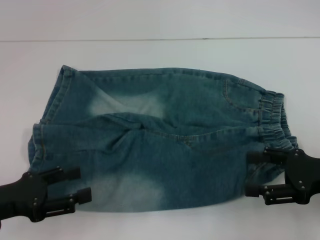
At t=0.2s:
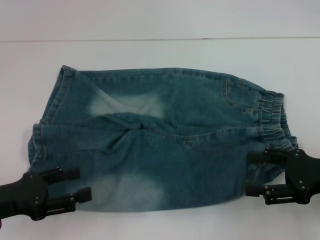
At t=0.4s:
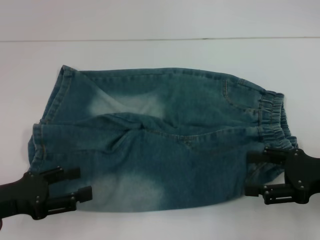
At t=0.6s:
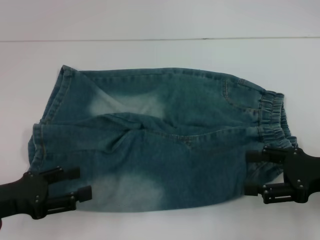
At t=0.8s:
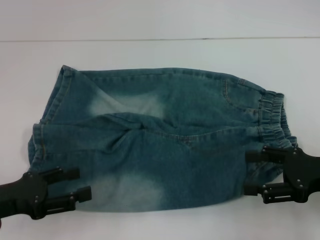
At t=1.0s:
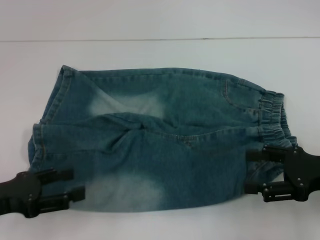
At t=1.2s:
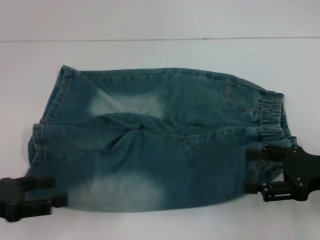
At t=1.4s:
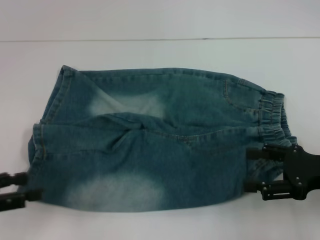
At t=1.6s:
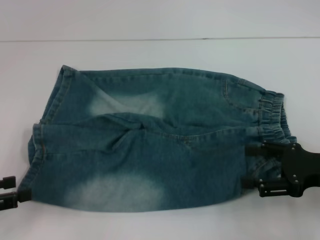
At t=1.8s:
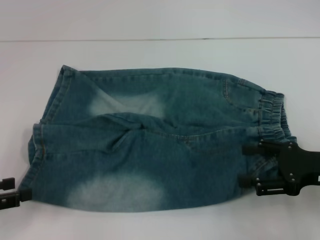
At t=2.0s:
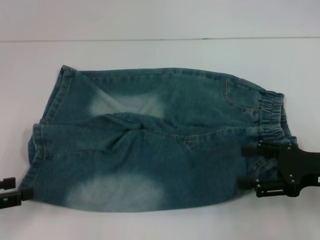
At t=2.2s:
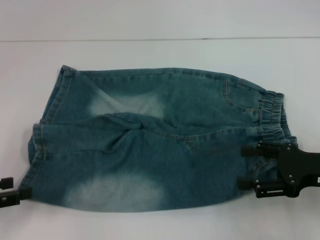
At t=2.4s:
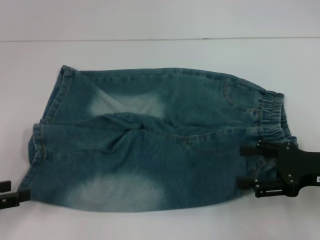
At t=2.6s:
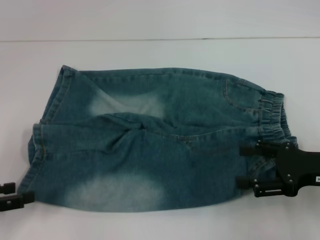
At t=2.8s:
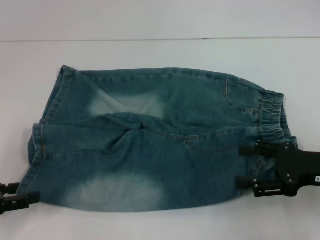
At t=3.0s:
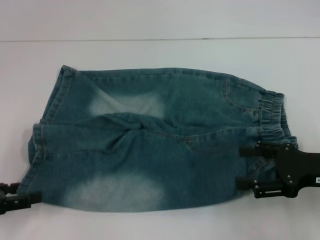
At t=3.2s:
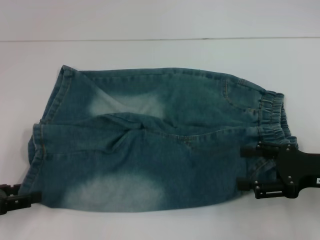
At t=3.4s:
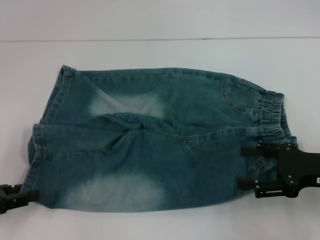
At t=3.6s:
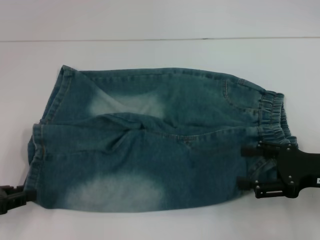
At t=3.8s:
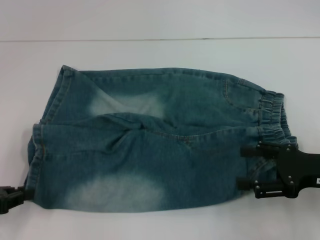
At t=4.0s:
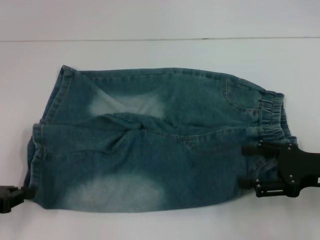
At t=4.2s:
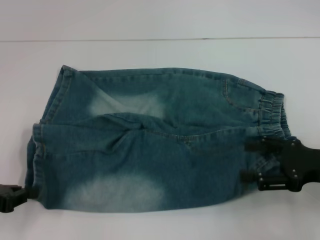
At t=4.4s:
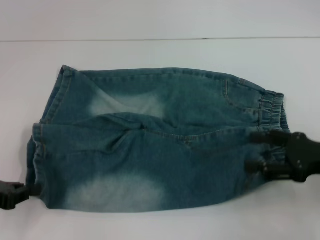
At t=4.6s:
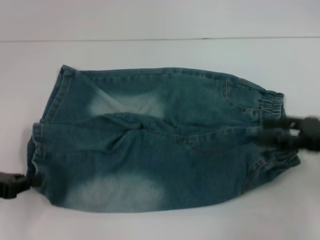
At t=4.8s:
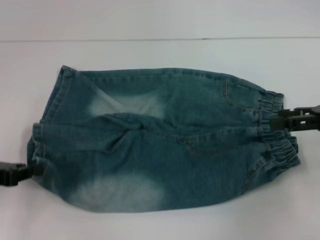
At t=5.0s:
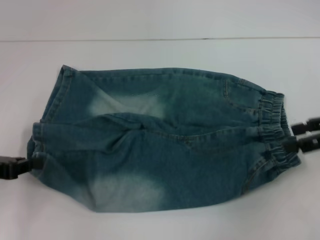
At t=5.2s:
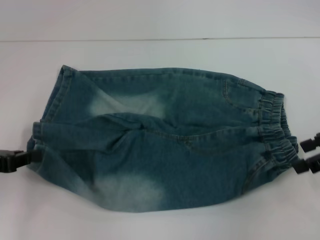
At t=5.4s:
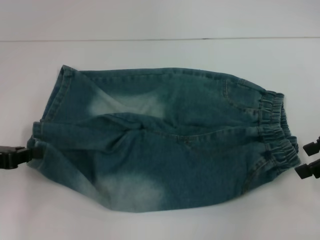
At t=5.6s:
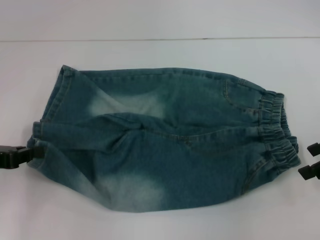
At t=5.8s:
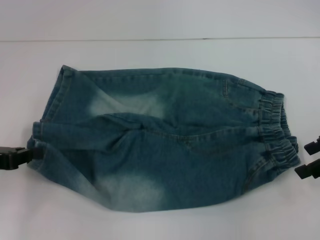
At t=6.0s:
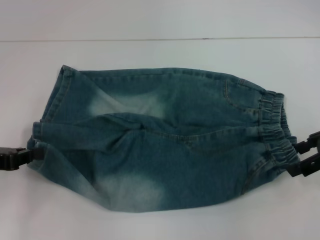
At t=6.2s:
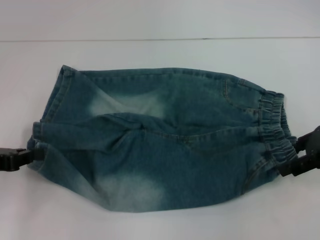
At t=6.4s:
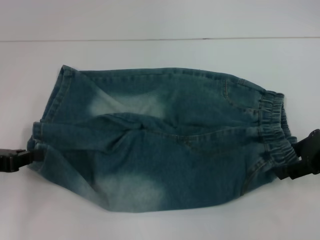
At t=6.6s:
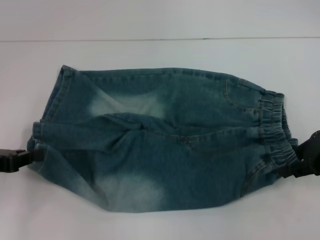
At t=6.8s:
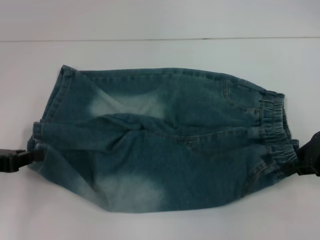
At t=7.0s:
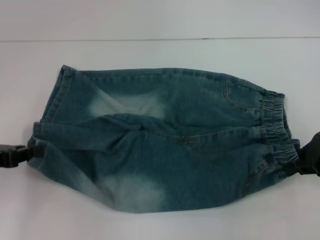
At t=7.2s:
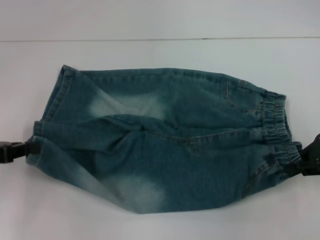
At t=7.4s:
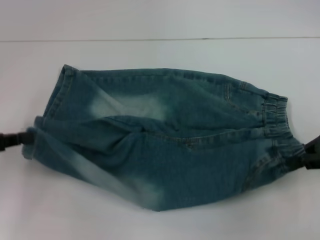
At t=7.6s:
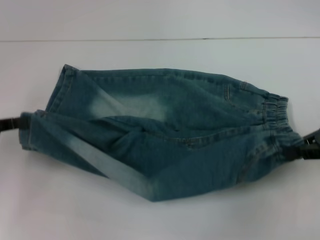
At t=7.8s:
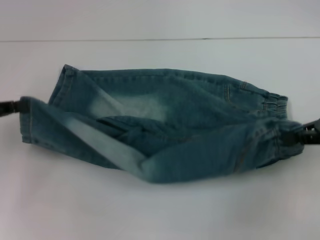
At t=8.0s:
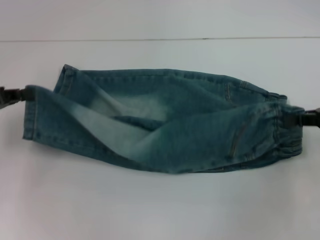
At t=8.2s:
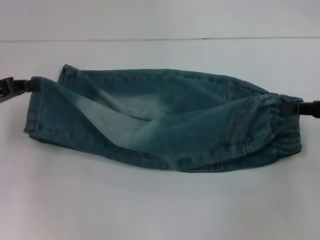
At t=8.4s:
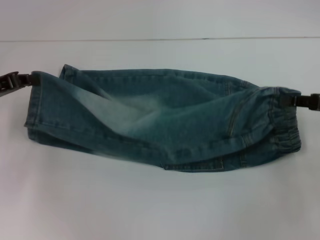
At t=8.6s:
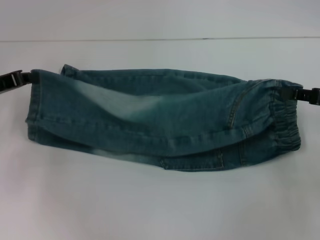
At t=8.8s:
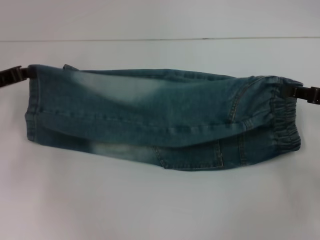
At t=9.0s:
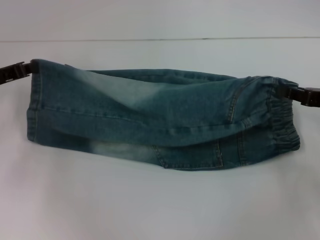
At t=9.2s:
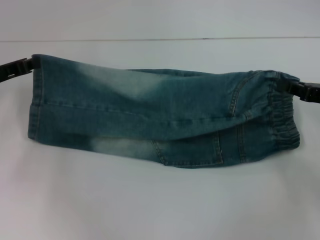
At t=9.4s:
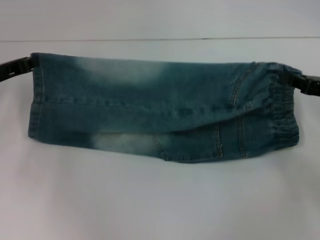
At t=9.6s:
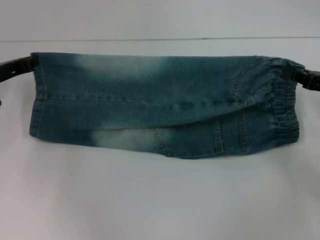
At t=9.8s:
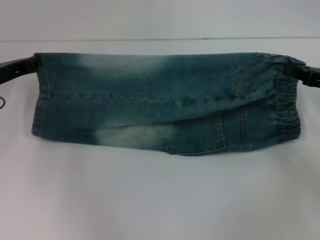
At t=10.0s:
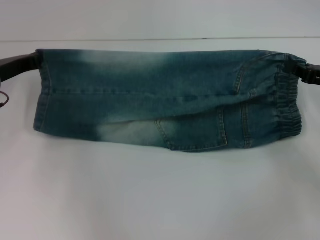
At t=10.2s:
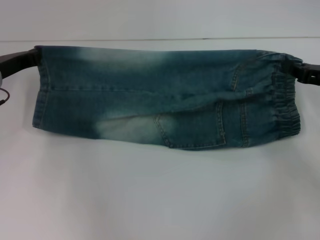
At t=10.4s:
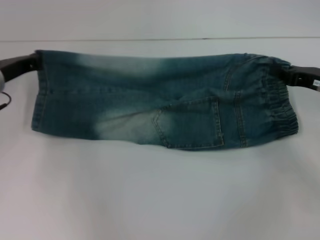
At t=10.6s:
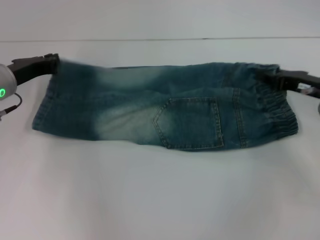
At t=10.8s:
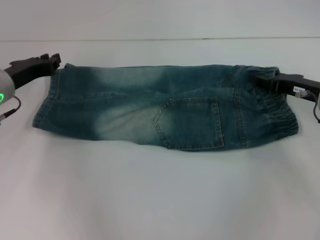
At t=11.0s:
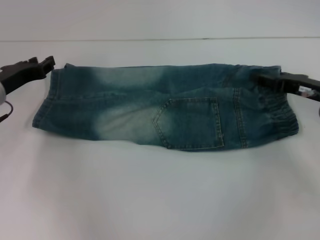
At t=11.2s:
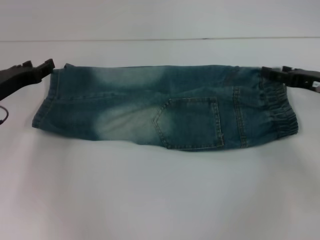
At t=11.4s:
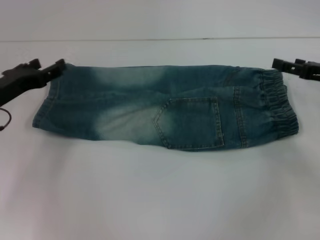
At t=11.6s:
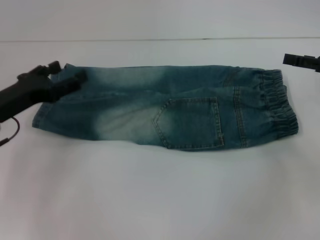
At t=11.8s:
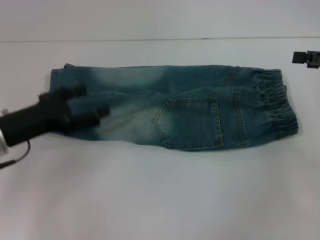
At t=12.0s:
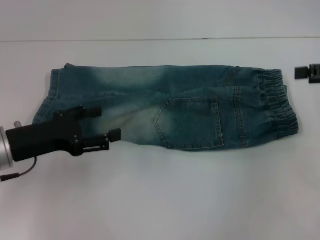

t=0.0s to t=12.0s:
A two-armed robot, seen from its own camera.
Step, t=0.0s to t=3.6s: Grab the lower left pant leg with your left hand.
Step, t=3.8s to t=7.0s: Hold the lower right waistband with your right hand.
Step, t=7.4s to t=11.0s: Fold upward with your right hand.
t=0.0s to t=1.6s: The left gripper goes about 5 cm to the left.
t=1.6s to t=3.0s: There are only small adjustments of the grippers.
t=3.0s to t=4.4s: The left gripper closes up.
t=4.4s to t=6.0s: The right gripper shifts some 10 cm forward and upward.
t=6.0s to t=7.6s: The right gripper closes.
t=7.6s to t=9.0s: The left gripper shifts roughly 10 cm forward. The right gripper moves downward, roughly 5 cm.
t=10.4s to t=12.0s: The right gripper is displaced upward and to the right by some 10 cm, and opens its fingers, while the left gripper goes about 10 cm backward, and opens up.

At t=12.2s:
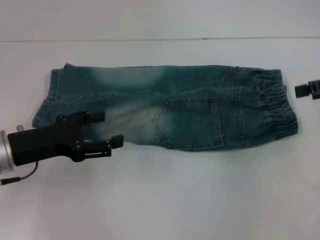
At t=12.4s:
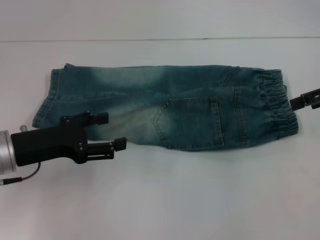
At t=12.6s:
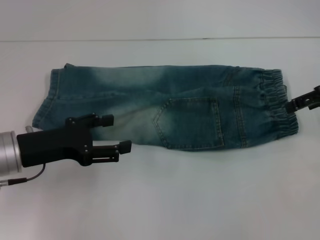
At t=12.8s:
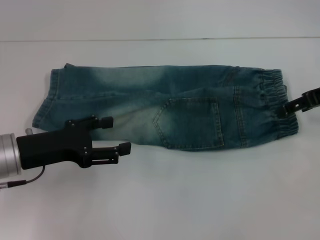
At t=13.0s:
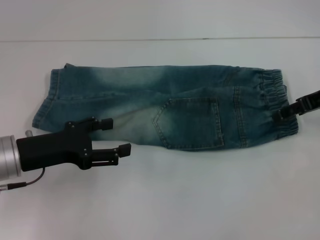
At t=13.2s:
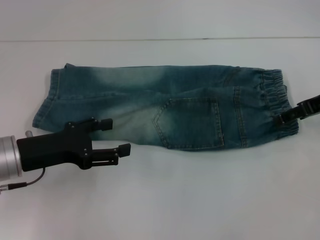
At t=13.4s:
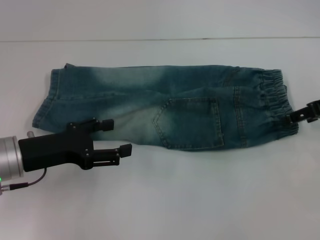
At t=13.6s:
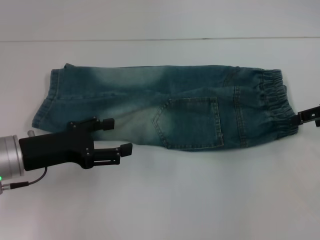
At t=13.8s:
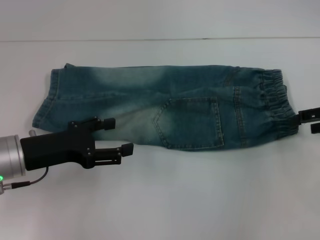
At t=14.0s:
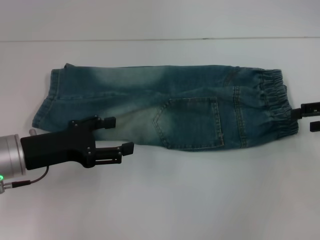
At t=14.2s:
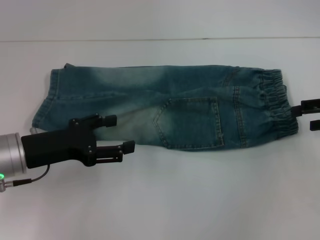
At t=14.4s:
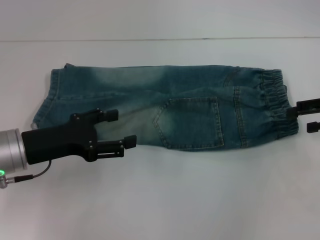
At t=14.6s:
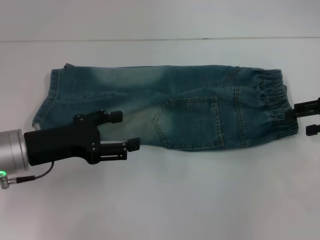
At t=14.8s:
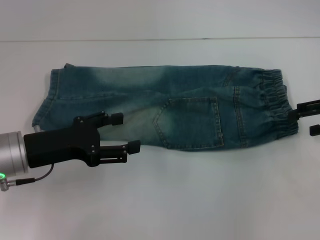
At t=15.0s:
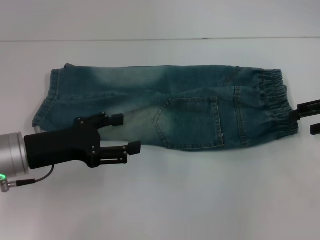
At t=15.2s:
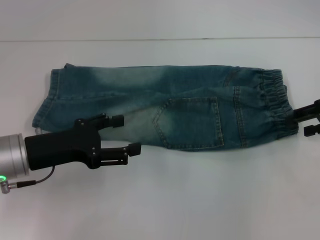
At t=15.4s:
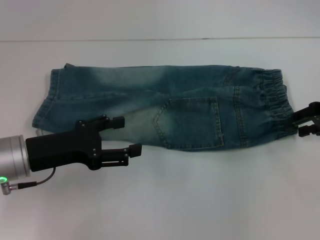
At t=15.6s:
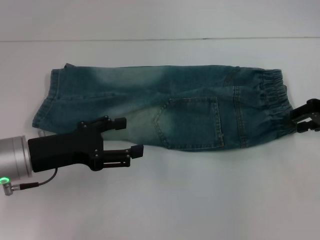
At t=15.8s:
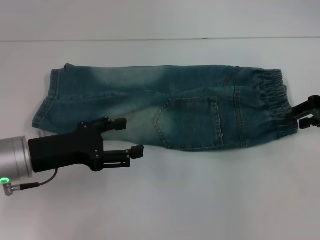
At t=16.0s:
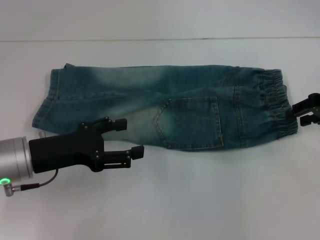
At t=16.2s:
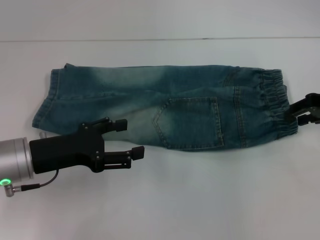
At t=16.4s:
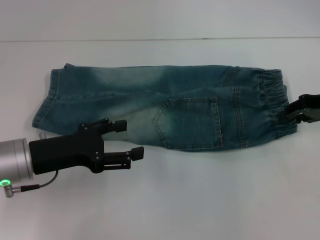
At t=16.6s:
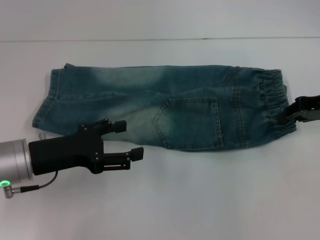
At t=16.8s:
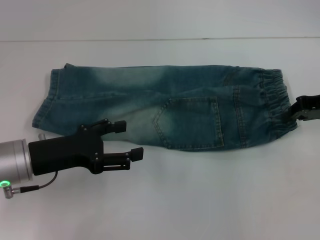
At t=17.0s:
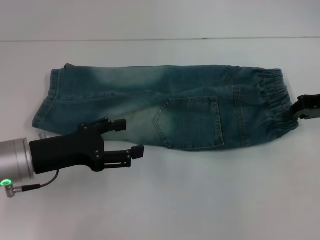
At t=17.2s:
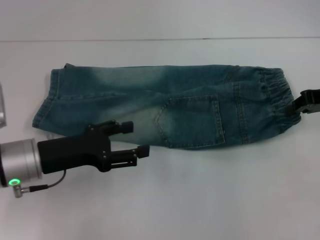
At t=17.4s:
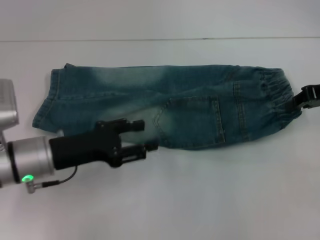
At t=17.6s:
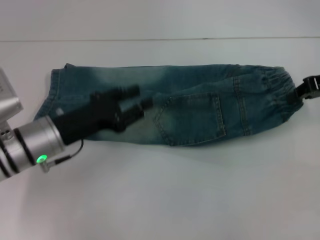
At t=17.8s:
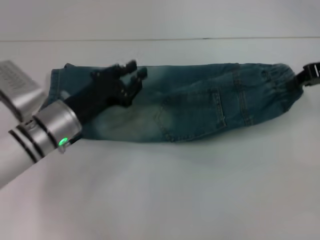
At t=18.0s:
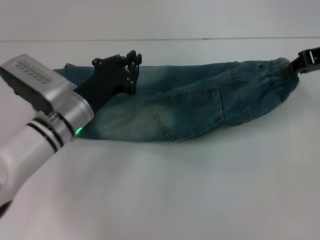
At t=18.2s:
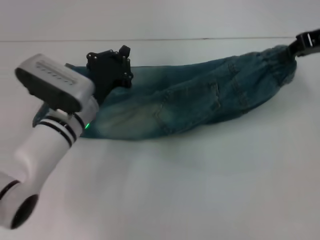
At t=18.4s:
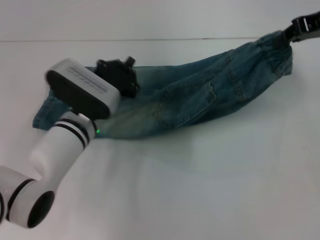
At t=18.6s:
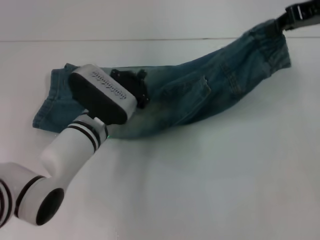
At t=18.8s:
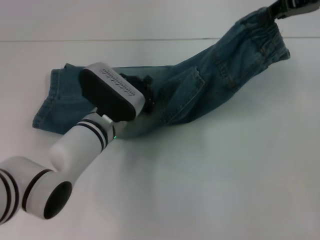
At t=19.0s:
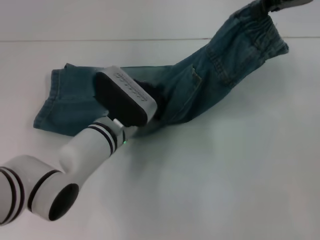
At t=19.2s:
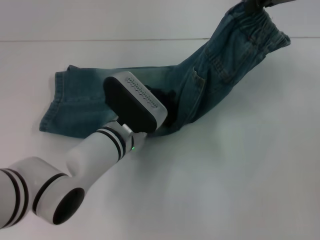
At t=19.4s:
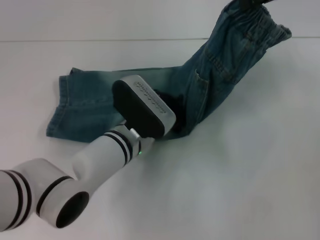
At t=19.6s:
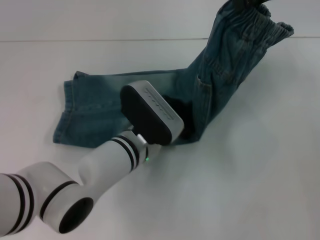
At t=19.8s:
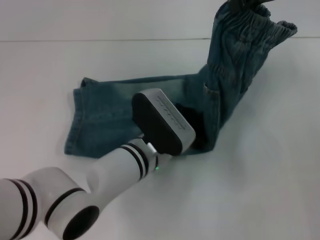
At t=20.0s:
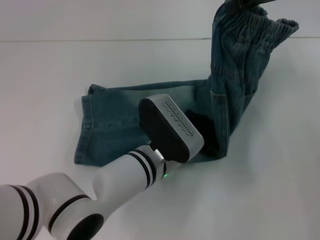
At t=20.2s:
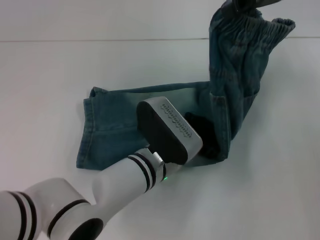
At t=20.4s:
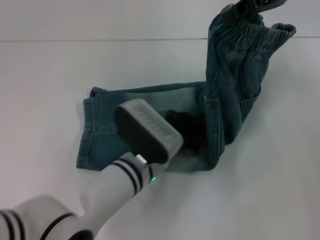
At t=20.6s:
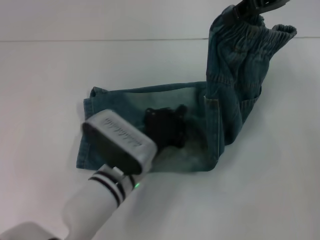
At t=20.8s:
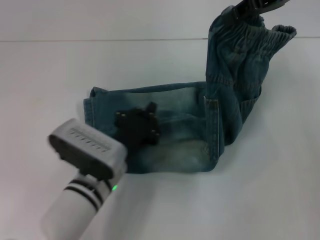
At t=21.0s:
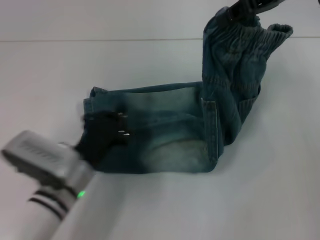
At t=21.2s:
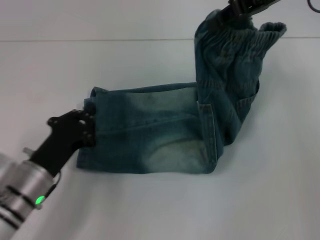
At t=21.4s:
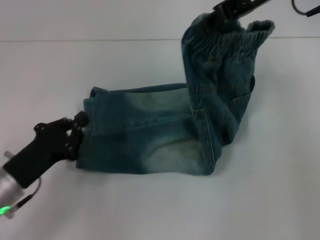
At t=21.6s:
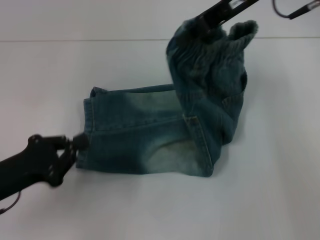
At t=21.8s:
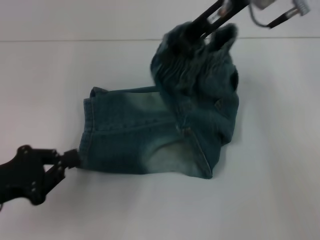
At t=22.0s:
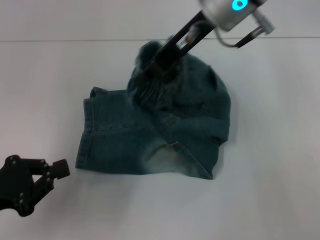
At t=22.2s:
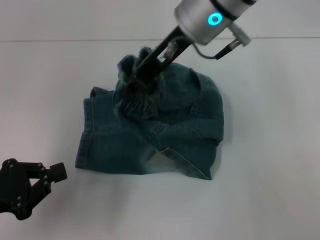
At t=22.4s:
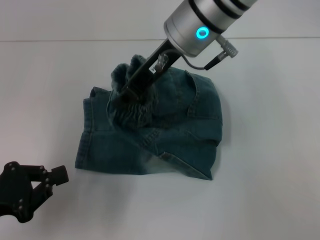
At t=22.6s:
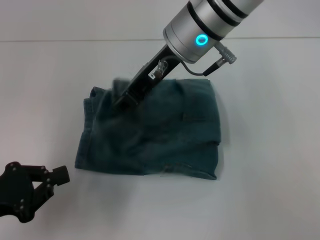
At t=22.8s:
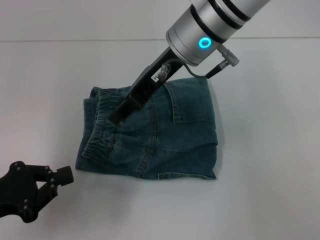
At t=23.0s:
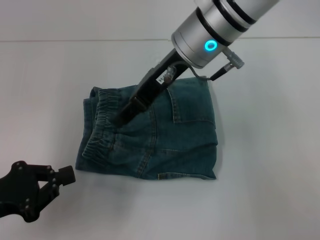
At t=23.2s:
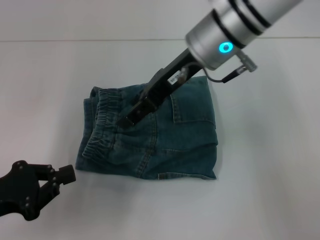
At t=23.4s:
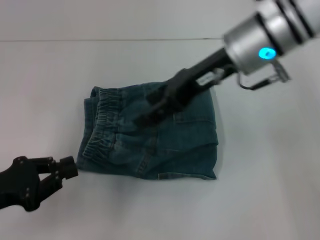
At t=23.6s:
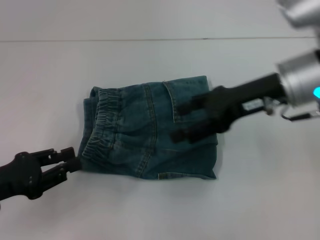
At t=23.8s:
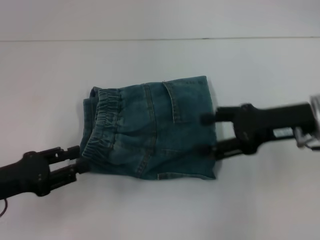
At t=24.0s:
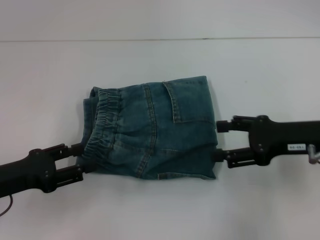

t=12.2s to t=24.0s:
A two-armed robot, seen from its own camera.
Step, t=12.2s to t=16.4s: Grab the waistband with your right hand.
Step, t=16.6s to t=20.4s: Press the middle of the pants with your left hand.
Step, t=20.6s to t=24.0s: Fold to the left with your right hand.
t=15.2s to t=16.6s: The right gripper closes up.
t=16.6s to t=18.2s: The left gripper goes about 10 cm to the right and forward, and closes. Meanwhile the right gripper is displaced upward by some 10 cm, and closes up.
t=18.2s to t=19.6s: The left gripper goes about 10 cm to the right; the right gripper is displaced upward and to the left by some 10 cm.
t=19.6s to t=21.0s: The left gripper goes some 10 cm to the left and backward.
t=21.0s to t=22.6s: Both grippers move to the left, about 15 cm.
t=22.6s to t=24.0s: The left gripper opens up. Meanwhile the right gripper is displaced to the right, downward and backward by approximately 25 cm, and opens.
